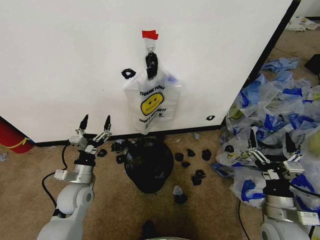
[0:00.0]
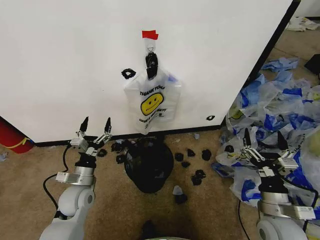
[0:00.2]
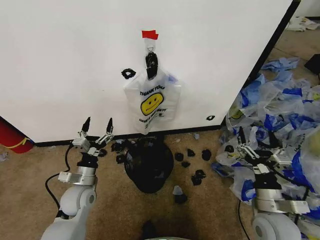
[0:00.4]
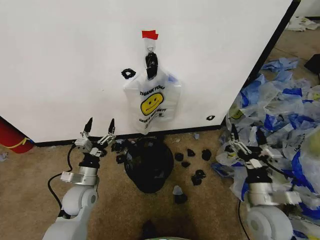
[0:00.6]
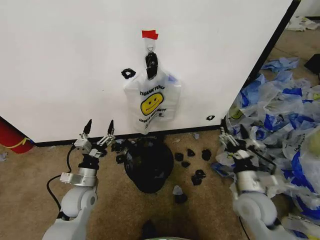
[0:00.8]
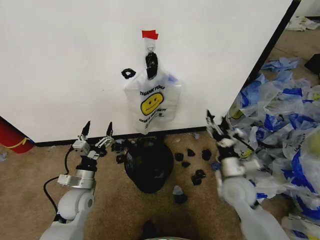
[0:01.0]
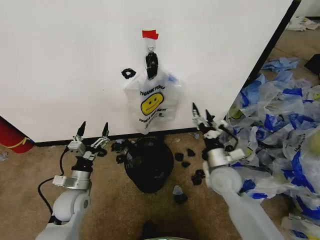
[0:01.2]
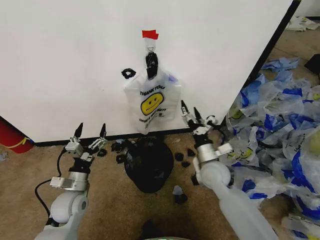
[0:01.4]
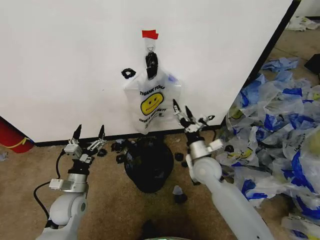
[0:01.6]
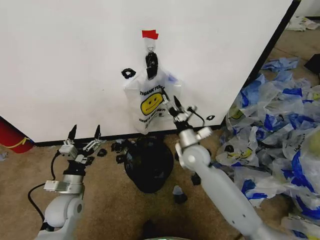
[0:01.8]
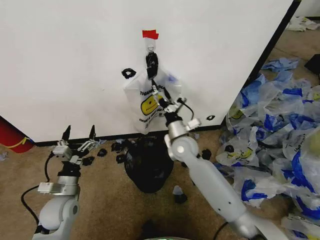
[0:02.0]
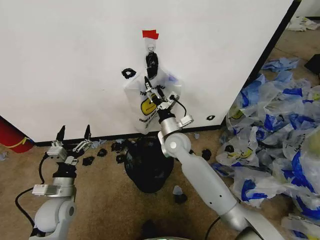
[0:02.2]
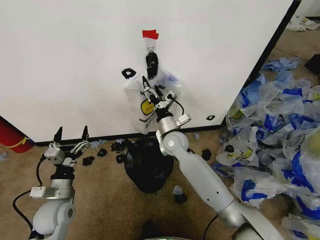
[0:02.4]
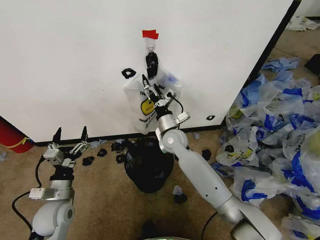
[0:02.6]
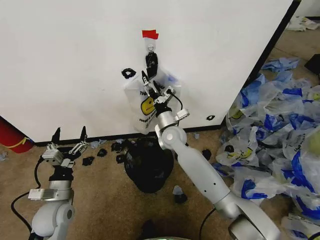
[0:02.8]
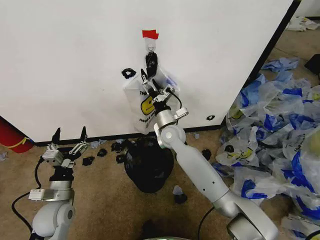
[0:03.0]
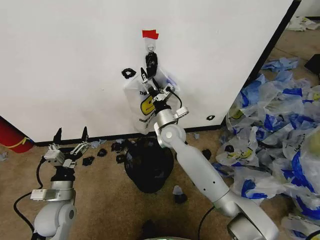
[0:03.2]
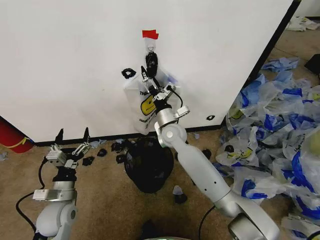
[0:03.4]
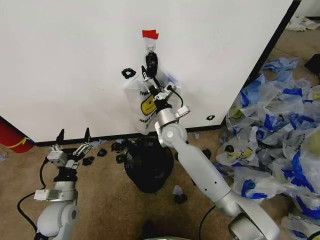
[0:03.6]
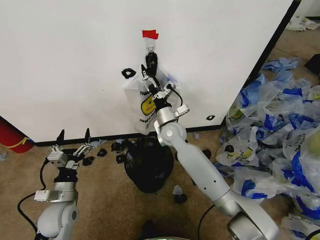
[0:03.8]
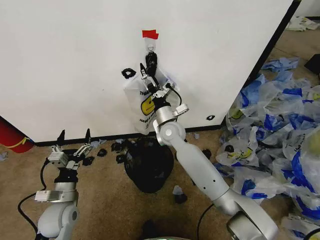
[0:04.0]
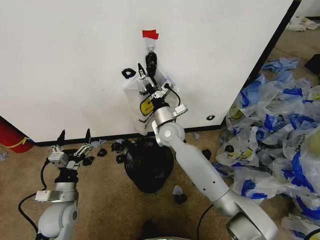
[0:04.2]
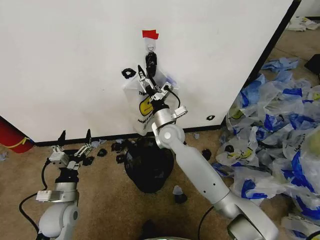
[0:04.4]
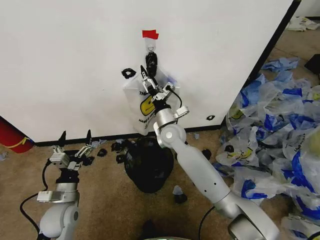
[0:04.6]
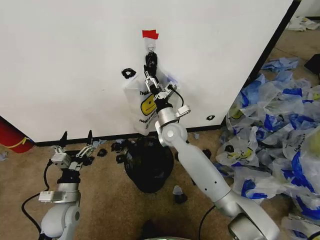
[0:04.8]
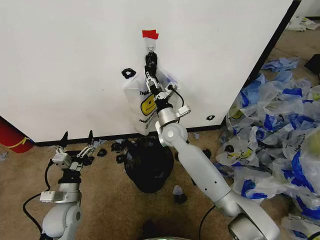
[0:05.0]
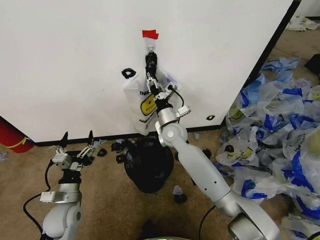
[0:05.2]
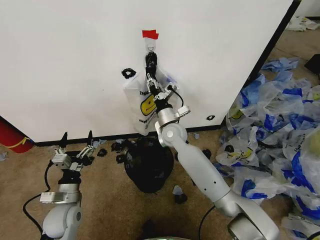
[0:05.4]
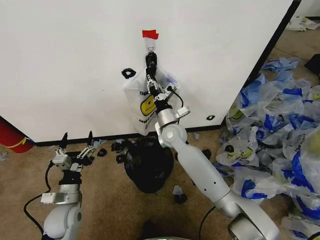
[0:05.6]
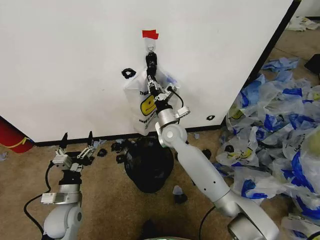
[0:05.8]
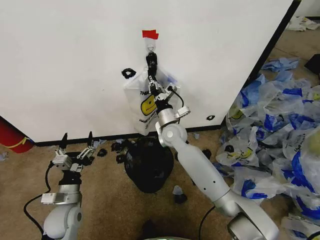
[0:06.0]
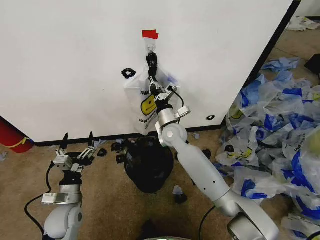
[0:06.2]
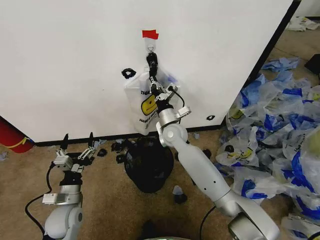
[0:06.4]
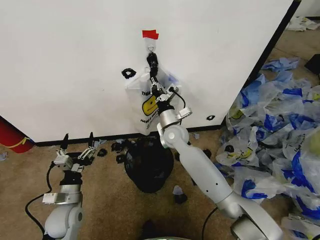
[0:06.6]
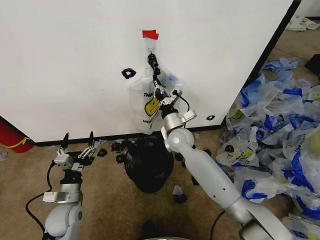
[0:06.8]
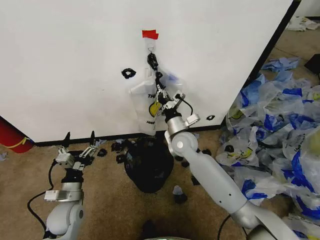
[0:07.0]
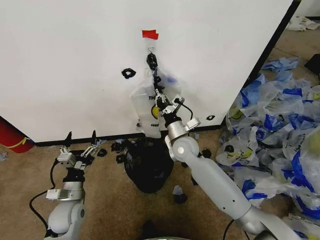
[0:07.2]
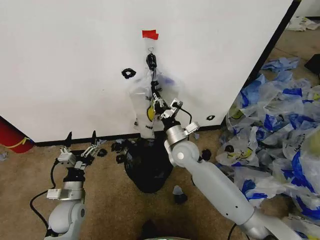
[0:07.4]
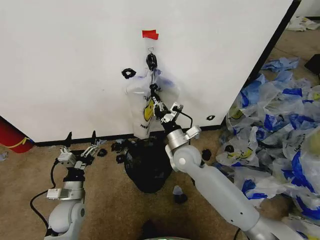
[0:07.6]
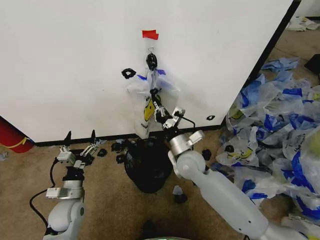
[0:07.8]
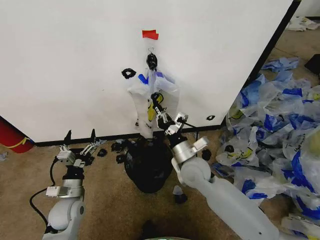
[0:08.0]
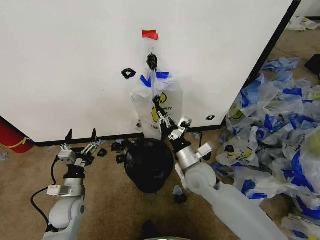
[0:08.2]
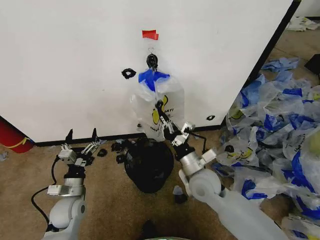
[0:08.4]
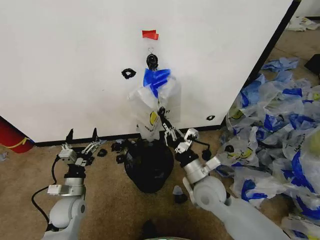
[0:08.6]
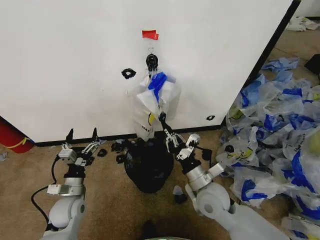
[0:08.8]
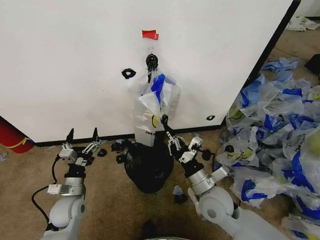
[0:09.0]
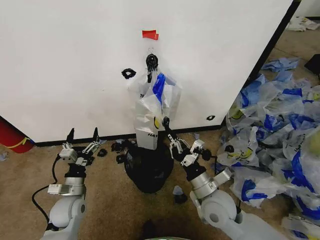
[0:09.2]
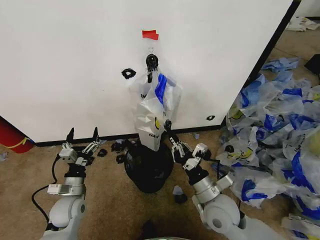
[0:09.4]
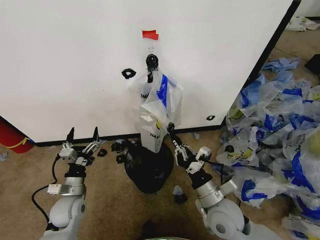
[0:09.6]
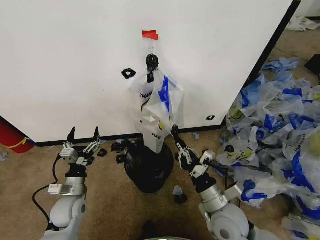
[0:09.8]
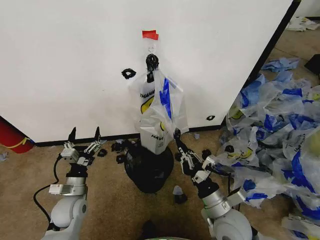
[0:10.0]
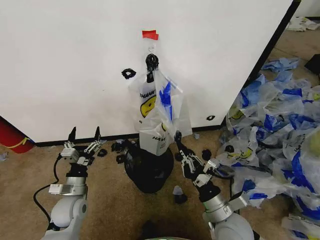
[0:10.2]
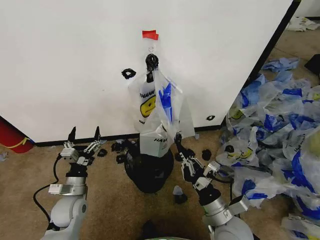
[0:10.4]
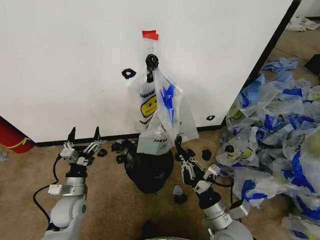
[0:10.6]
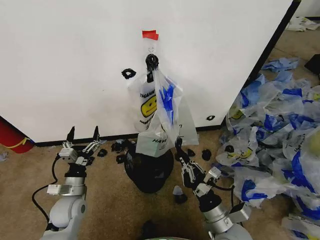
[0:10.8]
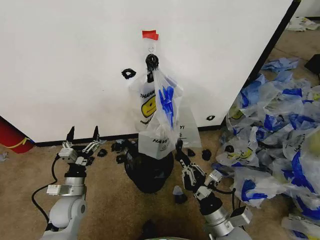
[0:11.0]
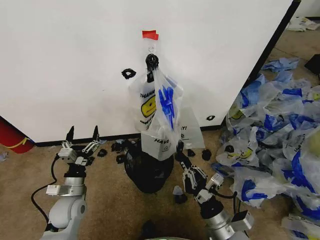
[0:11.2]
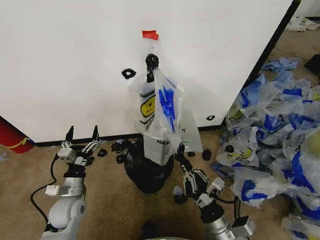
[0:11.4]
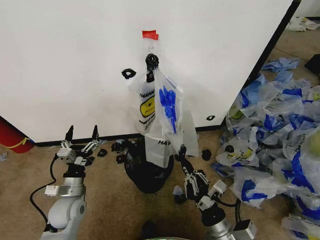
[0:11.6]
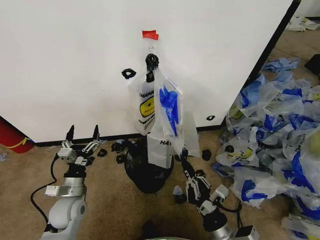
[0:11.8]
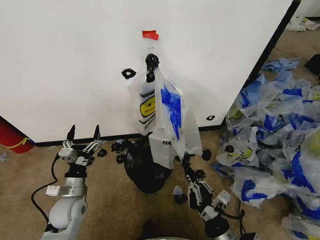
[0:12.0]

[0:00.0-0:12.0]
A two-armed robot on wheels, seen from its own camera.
Task of the whole recording: Pick up the garbage bag from the wall and place it over the trash bin.
0:01.6 to 0:03.0: The right gripper is displaced to the left, forward and upward by some 15 cm.
0:03.0 to 0:04.4: The grippers move only a little.
0:04.4 to 0:06.0: The right gripper closes its fingers.
0:06.0 to 0:07.6: The right gripper heads backward, covering about 10 cm.
0:07.6 to 0:09.0: The right gripper travels backward and to the right by roughly 15 cm.
0:09.0 to 0:10.4: The right gripper shifts approximately 5 cm backward.
0:10.4 to 0:12.0: The right gripper is displaced backward by about 5 cm.

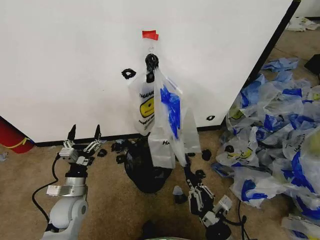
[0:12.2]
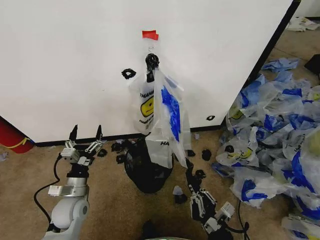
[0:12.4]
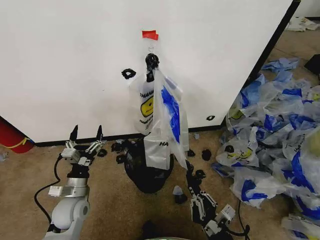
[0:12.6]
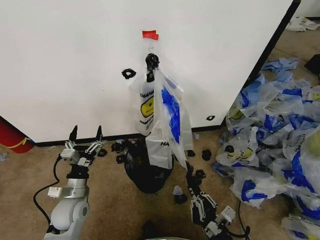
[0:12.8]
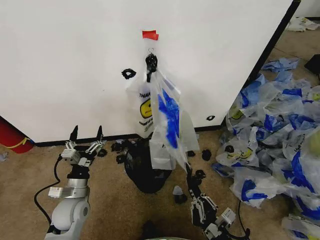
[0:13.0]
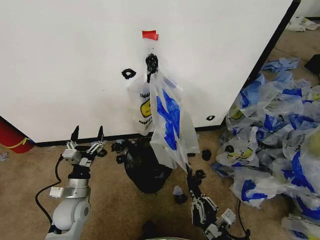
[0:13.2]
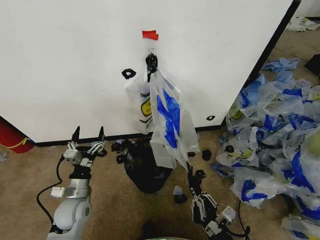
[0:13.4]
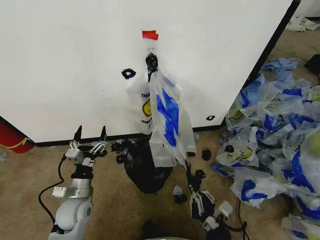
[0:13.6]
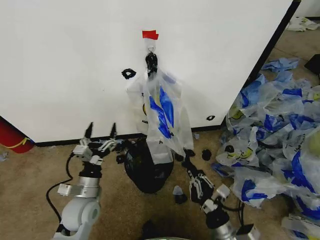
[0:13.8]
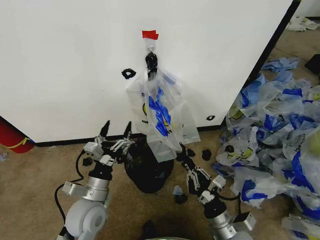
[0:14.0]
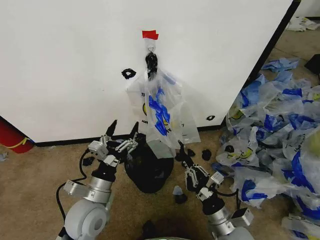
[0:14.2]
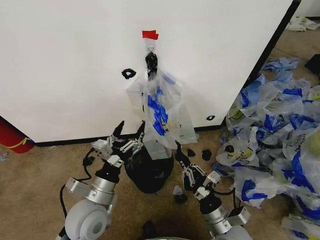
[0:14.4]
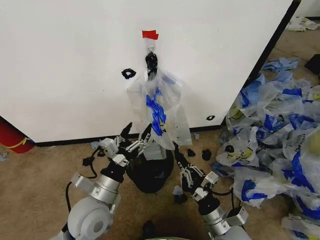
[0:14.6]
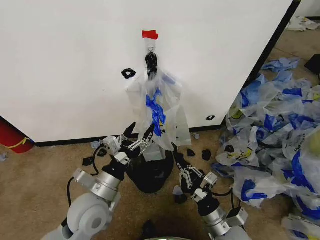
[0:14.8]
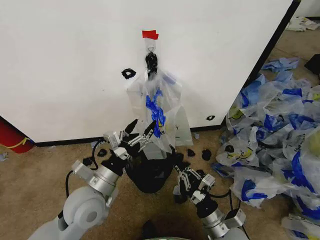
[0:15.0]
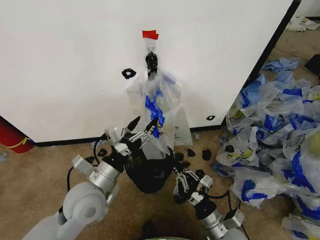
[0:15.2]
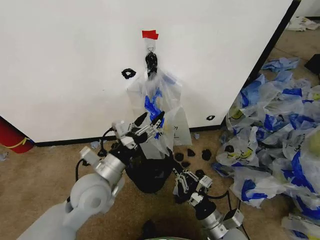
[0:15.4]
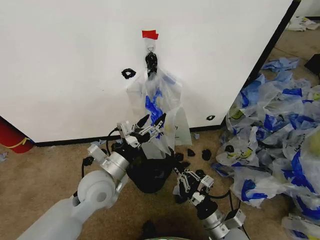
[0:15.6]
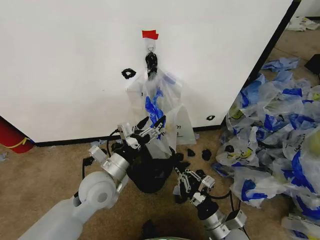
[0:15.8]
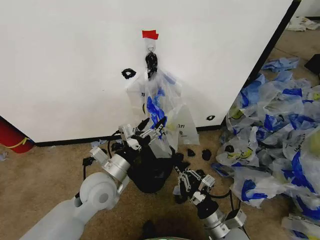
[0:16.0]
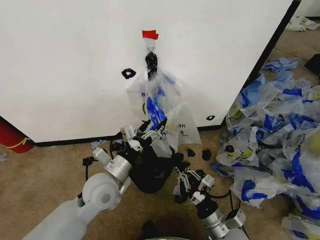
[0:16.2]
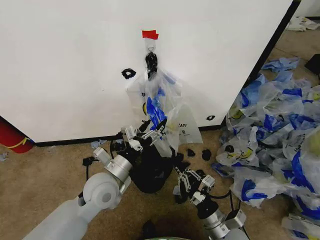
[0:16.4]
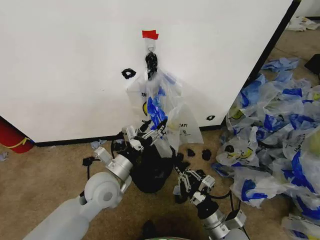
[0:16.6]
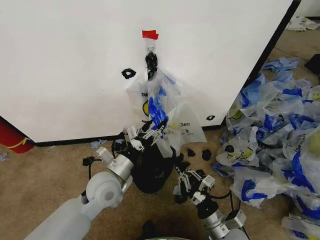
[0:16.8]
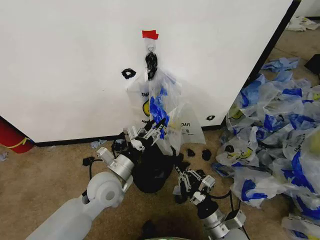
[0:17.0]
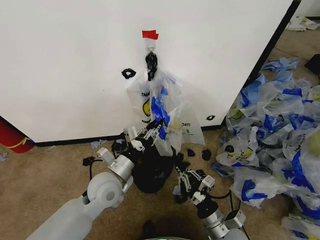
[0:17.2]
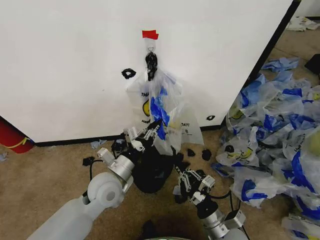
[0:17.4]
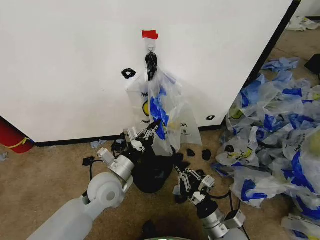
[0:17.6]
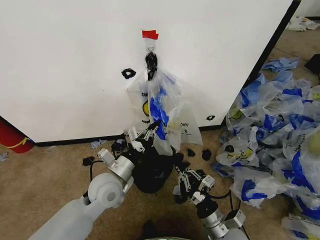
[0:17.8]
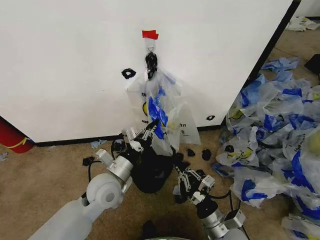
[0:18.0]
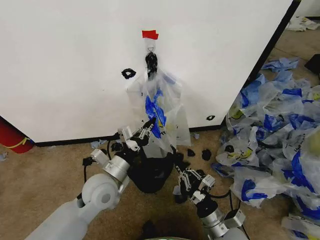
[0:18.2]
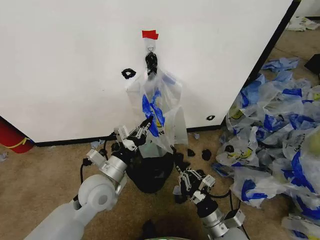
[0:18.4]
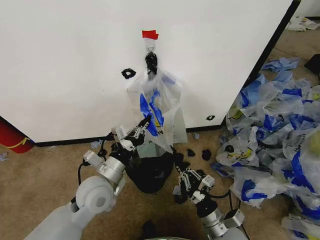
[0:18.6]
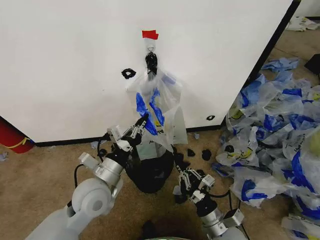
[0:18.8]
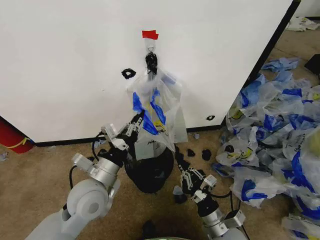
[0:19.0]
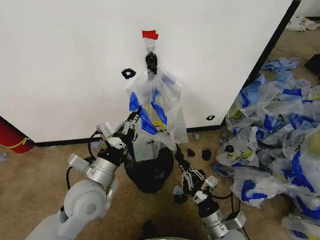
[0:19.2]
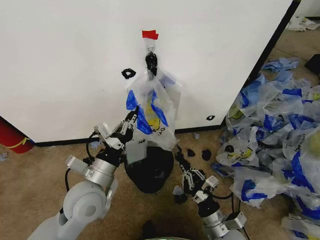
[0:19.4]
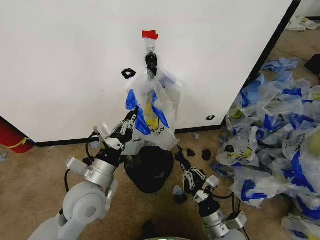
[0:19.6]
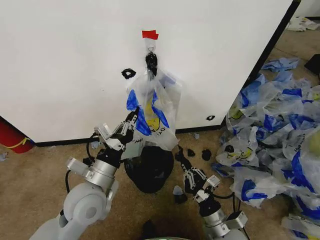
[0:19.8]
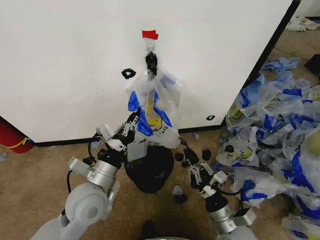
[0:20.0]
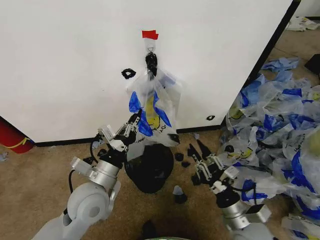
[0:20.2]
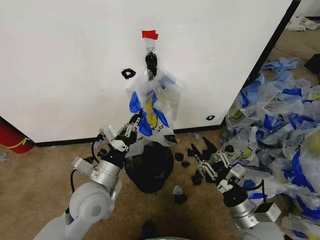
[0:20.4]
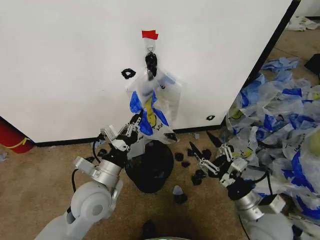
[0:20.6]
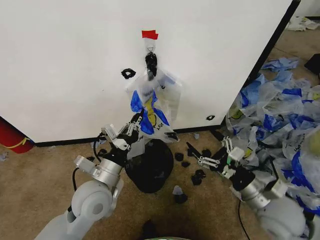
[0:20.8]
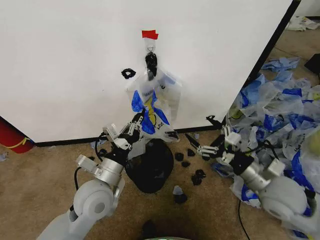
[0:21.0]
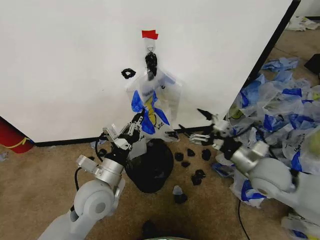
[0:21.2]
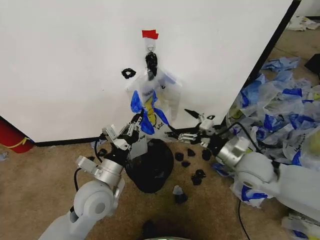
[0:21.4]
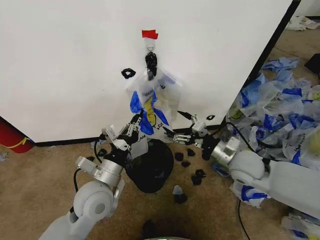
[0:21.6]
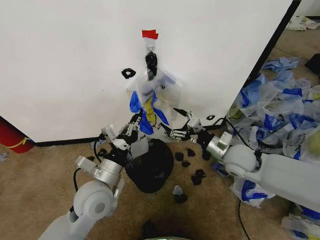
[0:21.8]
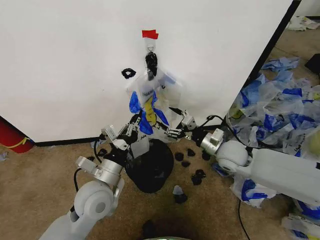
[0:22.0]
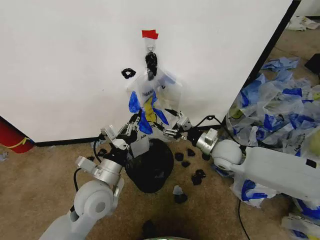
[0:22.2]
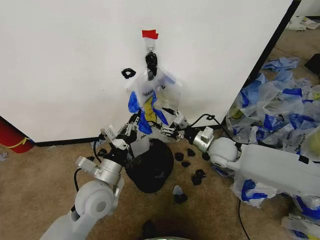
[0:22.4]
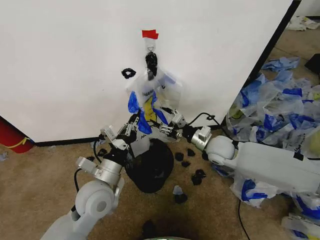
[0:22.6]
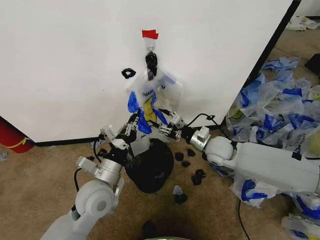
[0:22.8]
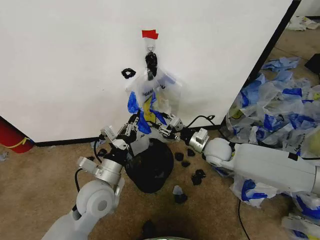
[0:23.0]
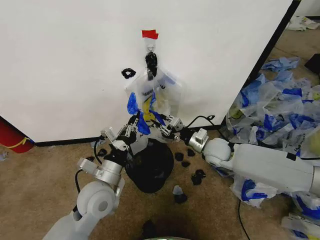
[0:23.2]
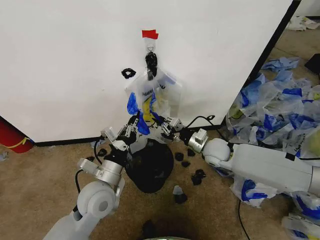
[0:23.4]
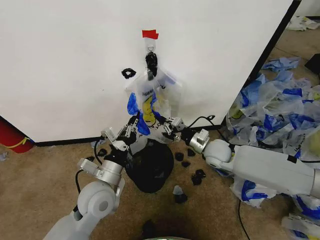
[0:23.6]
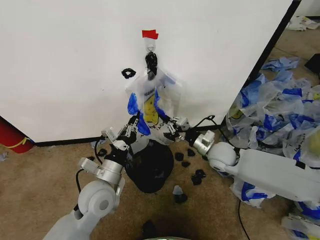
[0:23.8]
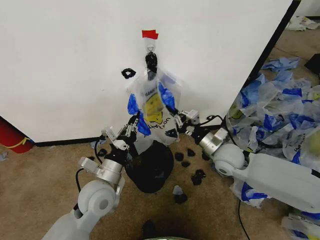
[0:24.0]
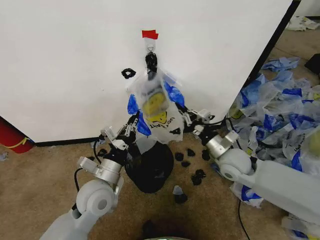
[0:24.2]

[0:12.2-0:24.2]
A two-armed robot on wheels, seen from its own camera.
Task of the whole recording: Pick up the garbage bag from the wall and place it over the trash bin.
0:12.2 to 0:13.8: The left gripper heads to the right, covering approximately 5 cm.
0:13.8 to 0:15.2: The left gripper goes about 10 cm upward.
0:15.2 to 0:16.6: The left gripper shifts by roughly 5 cm.
0:16.6 to 0:18.2: The left gripper closes up.
0:18.2 to 0:19.8: The left gripper shifts by roughly 5 cm.
0:19.8 to 0:21.2: The right gripper travels upward, forward and to the right by roughly 25 cm, and opens its fingers.
0:21.2 to 0:22.6: The right gripper is displaced forward and to the left by about 15 cm.
0:22.6 to 0:24.2: The right gripper is displaced backward by roughly 5 cm, and closes up.
